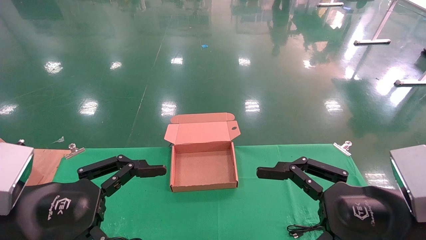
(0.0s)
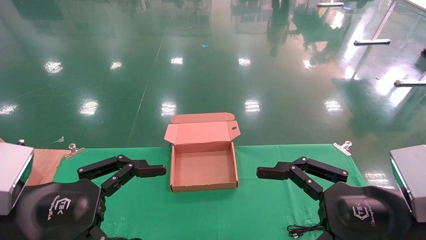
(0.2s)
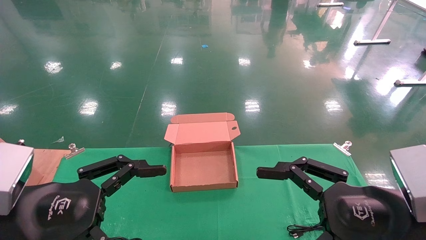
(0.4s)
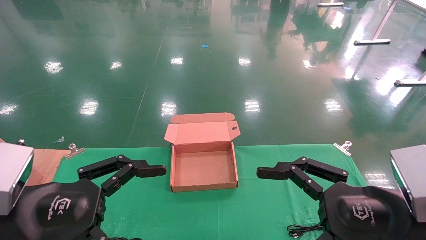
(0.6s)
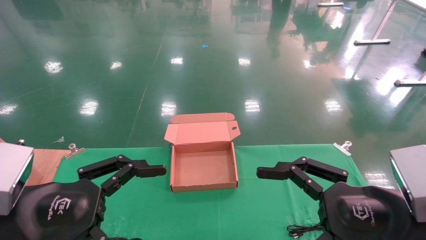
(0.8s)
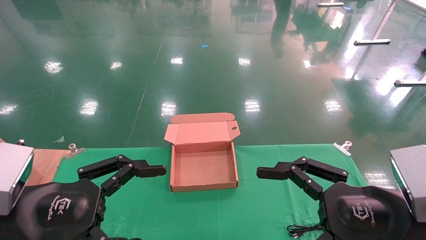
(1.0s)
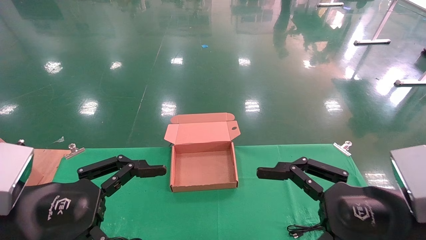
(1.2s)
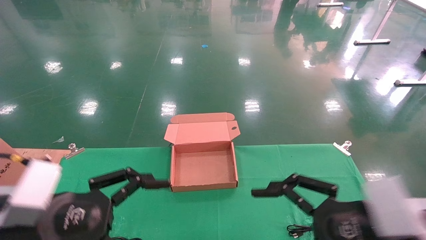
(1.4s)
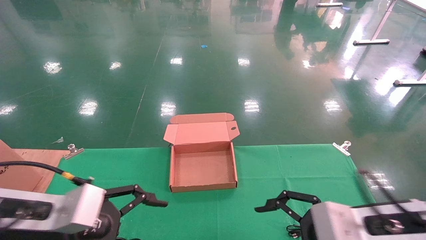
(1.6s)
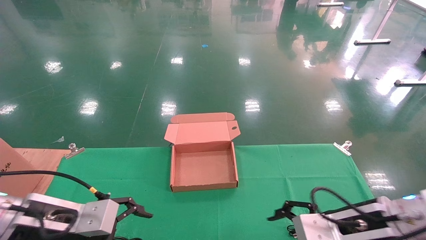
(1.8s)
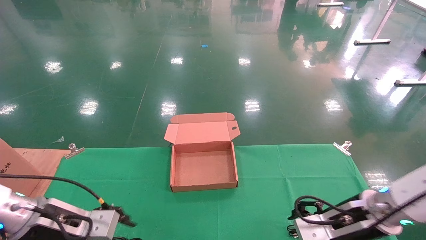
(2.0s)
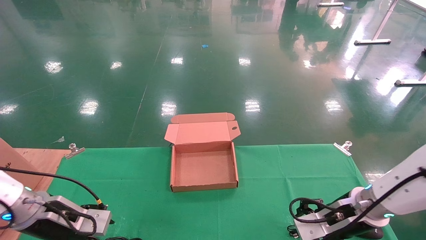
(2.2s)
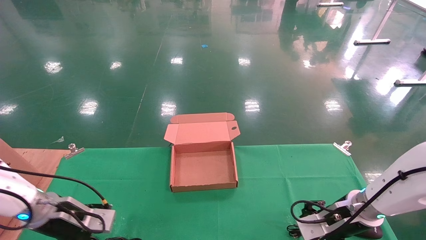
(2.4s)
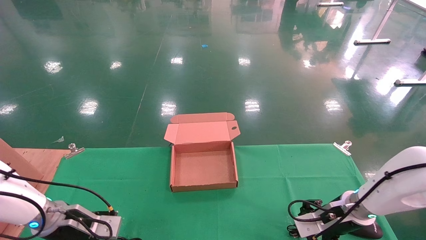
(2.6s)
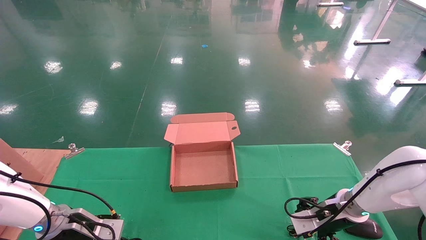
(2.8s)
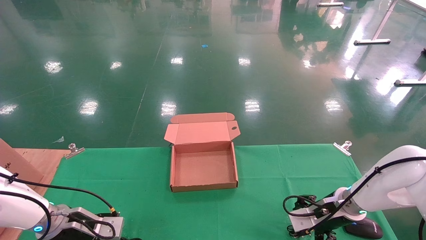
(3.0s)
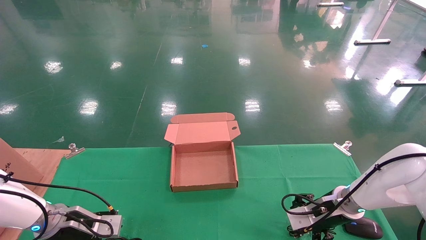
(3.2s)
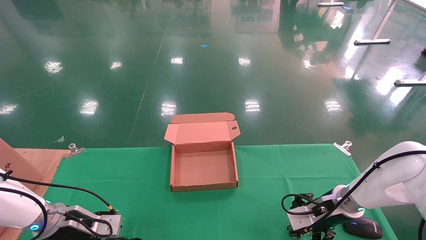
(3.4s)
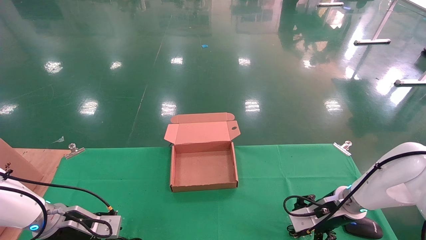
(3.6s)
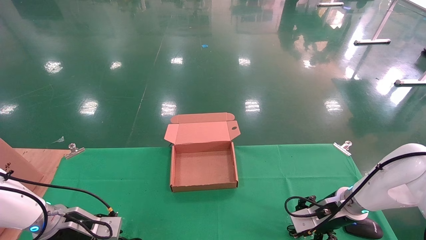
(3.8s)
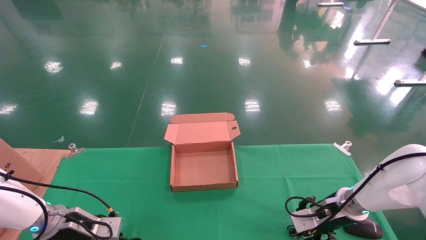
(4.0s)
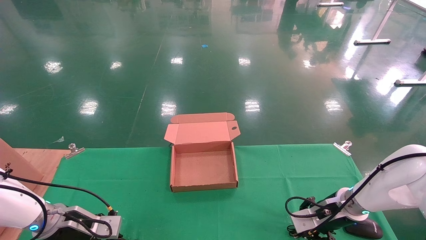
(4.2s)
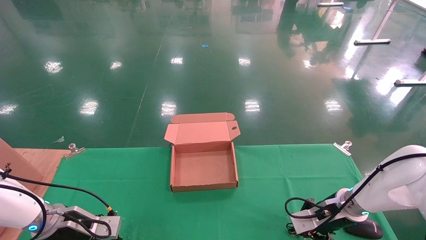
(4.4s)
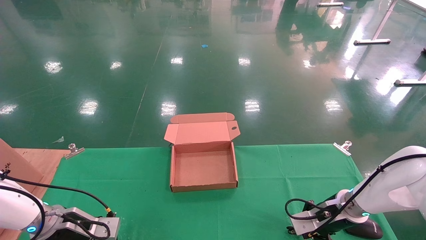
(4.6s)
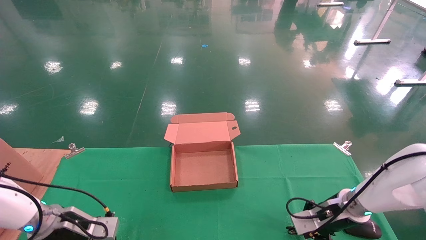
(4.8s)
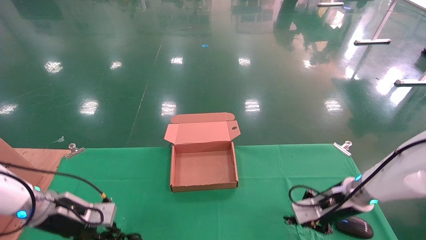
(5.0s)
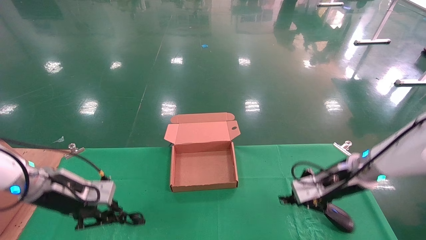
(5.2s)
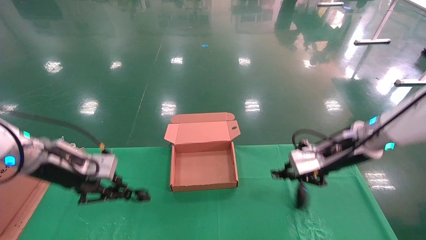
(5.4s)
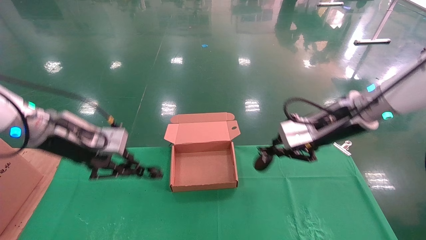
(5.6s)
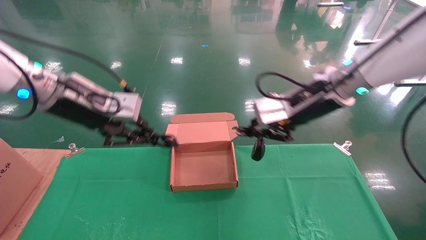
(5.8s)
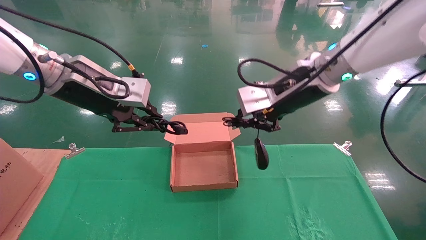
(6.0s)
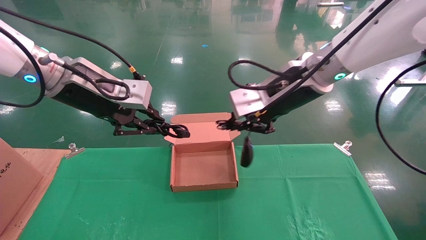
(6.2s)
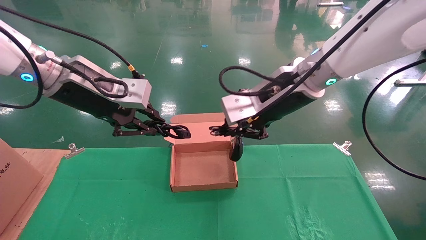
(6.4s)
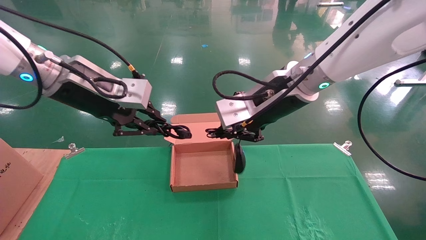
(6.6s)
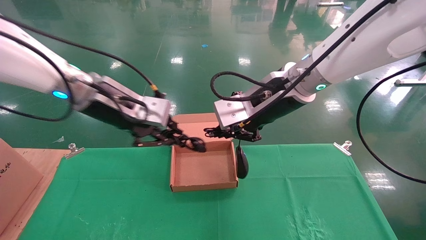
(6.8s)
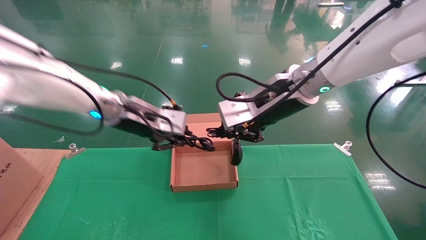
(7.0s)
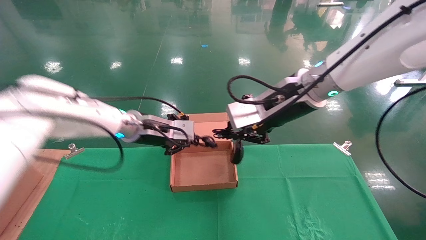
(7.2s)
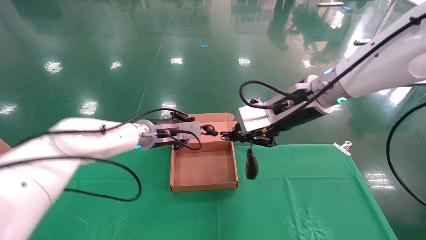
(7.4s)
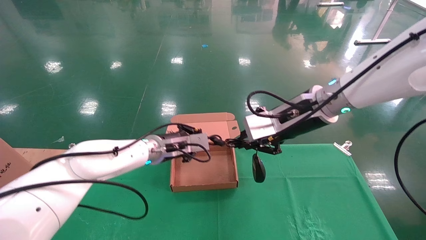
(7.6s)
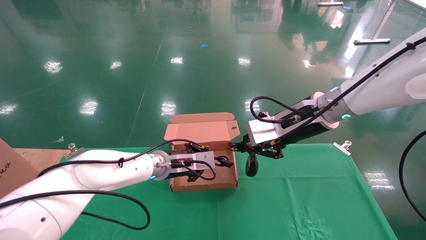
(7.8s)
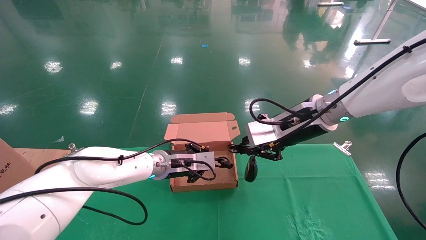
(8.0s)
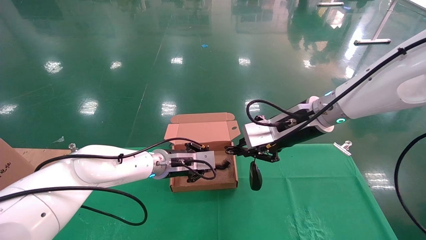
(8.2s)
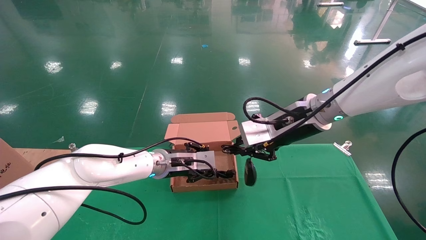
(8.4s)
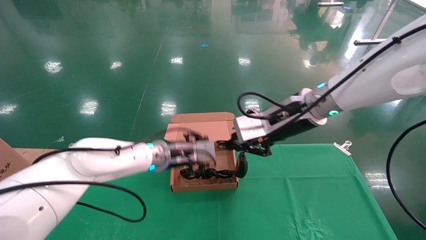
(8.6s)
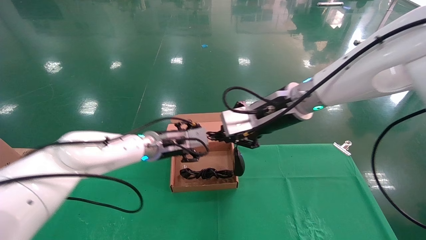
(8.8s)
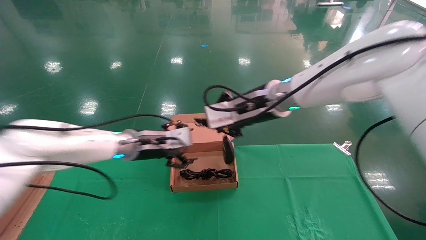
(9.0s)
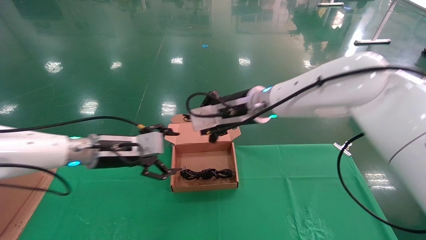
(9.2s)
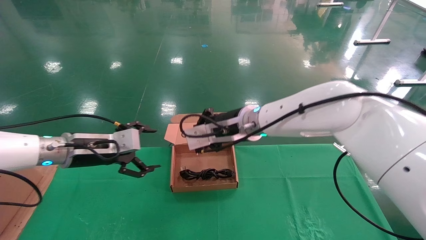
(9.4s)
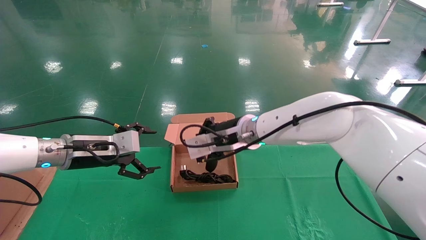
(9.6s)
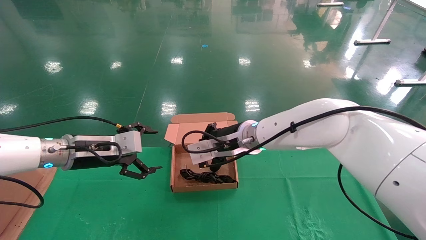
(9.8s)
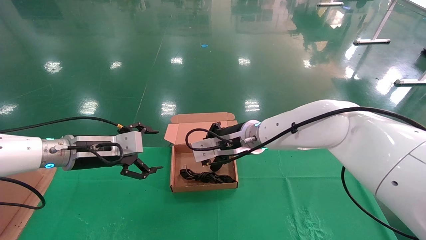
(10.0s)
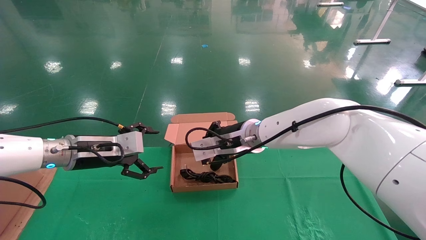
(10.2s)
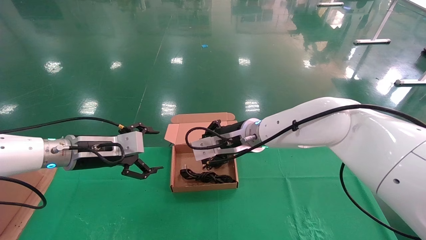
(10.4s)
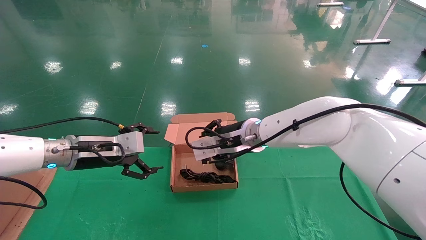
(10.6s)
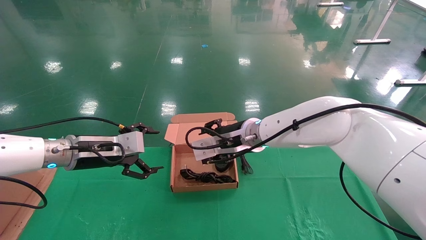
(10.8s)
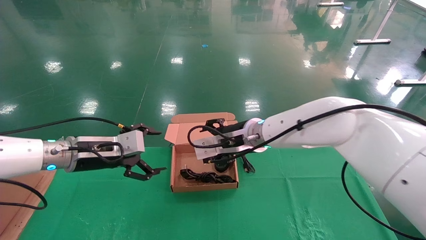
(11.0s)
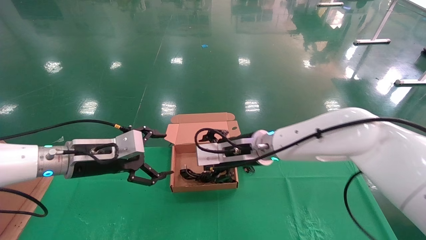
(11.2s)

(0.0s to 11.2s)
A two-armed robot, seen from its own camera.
Step, 1.4s - 5.2s: Grab and lift both the mouse and power cord from the accessory packaging area at the same time.
0.0s - 1.6s: The grippers both shift forward by approximately 5 cm.
1.6s - 3.2s: The right gripper travels forward and downward by roughly 20 cm. The left gripper moves forward, downward and to the left, some 20 cm.
3.2s - 4.8s: The right gripper closes; the left gripper closes up.
4.8s - 6.4s: The right gripper is displaced upward and to the left by approximately 30 cm. The left gripper moves upward, approximately 30 cm.
6.4s - 8.0s: The right gripper travels downward by some 5 cm; the left gripper moves downward, forward and to the right, about 30 cm.
8.0s - 9.6s: The right gripper shifts some 10 cm to the left. The left gripper is displaced to the left and backward by roughly 20 cm, and opens its fingers.
9.6s - 11.2s: The right gripper opens its fingers.

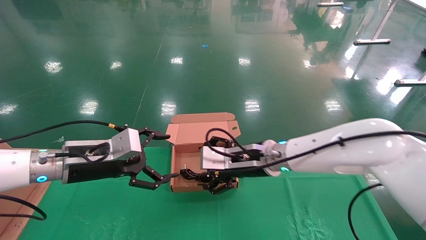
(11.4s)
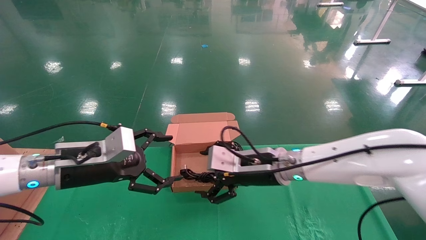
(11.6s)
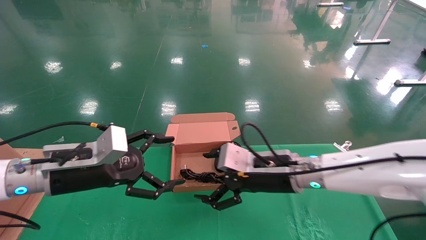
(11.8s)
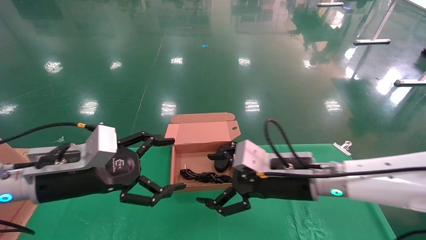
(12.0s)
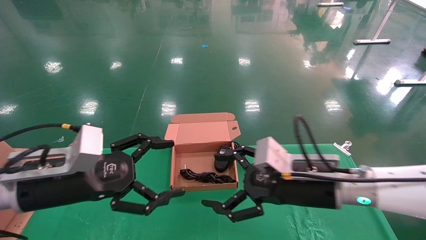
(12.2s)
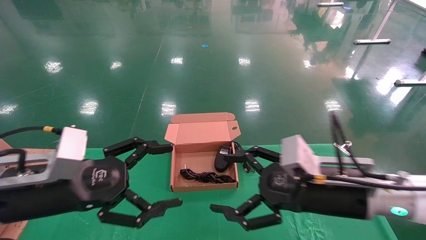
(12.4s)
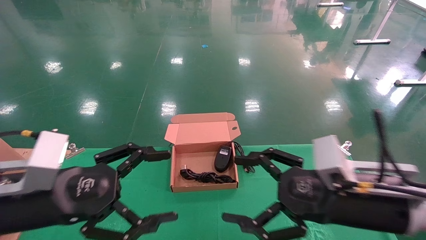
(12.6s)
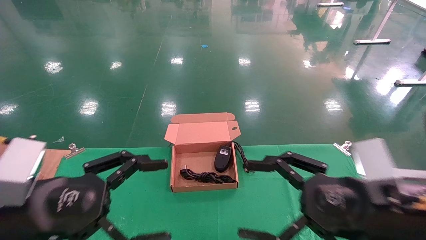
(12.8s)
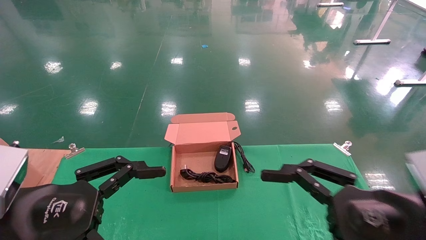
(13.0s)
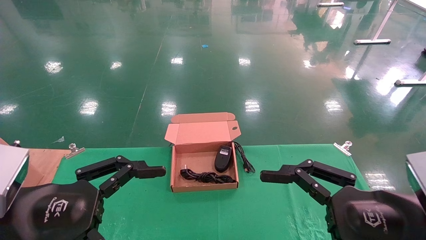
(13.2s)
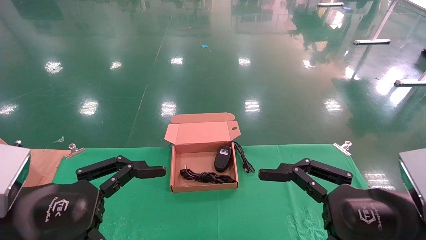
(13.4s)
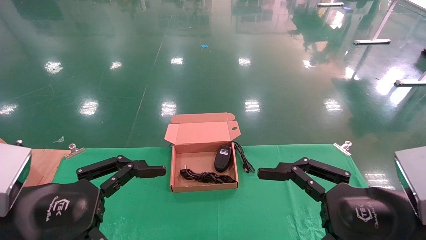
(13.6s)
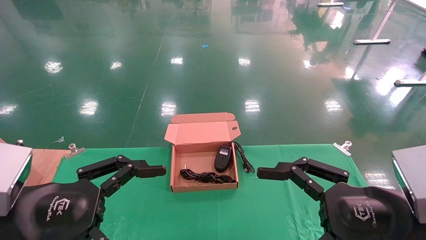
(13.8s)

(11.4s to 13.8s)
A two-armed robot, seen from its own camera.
11.4s - 12.6s: The right gripper heads backward and to the right, covering approximately 20 cm, while the left gripper moves backward, approximately 15 cm.
12.6s - 13.8s: The right gripper moves backward, some 5 cm.

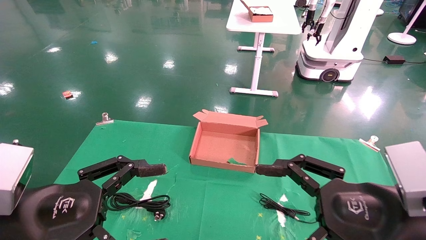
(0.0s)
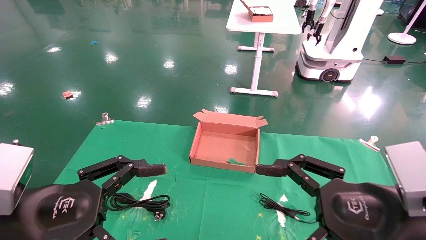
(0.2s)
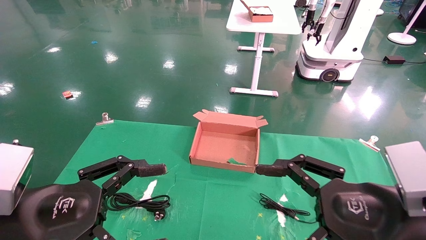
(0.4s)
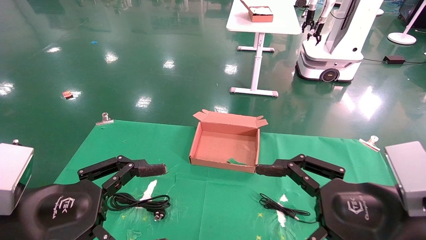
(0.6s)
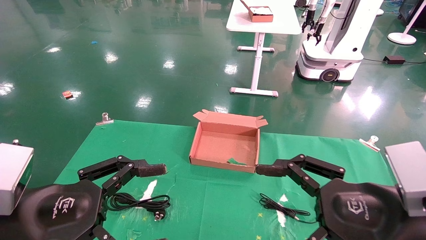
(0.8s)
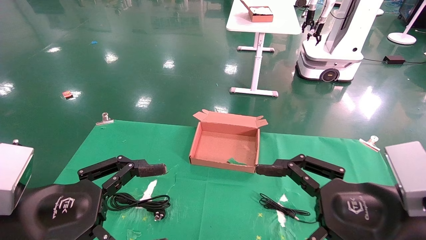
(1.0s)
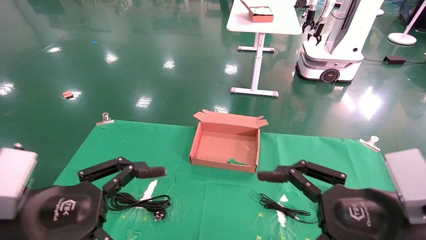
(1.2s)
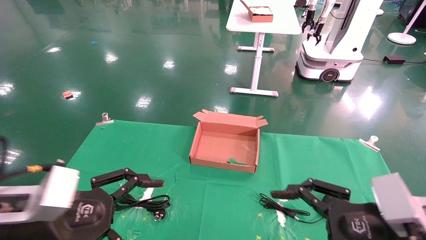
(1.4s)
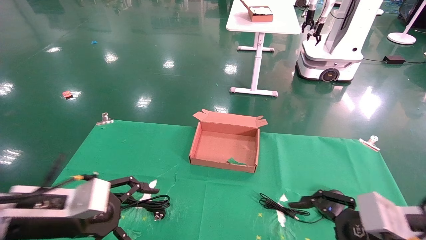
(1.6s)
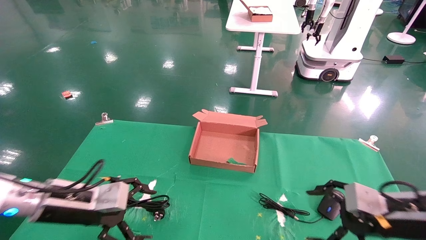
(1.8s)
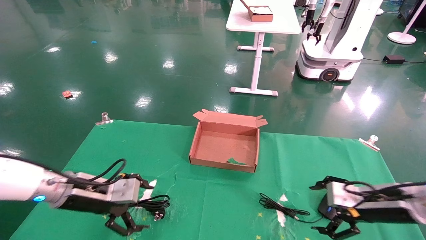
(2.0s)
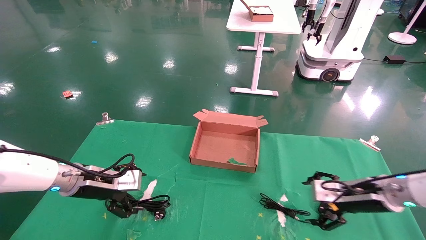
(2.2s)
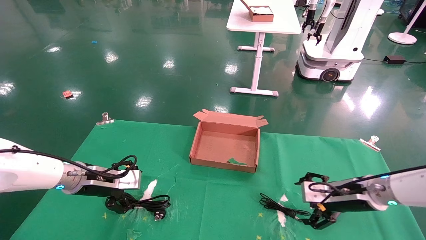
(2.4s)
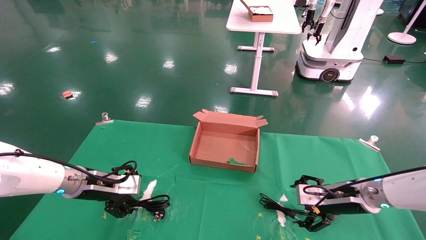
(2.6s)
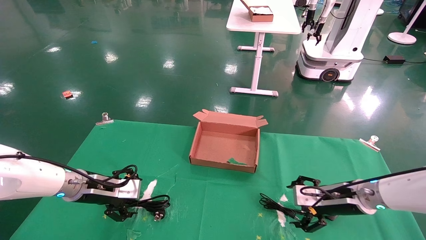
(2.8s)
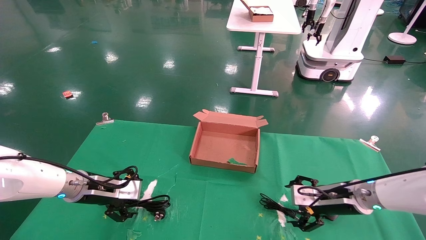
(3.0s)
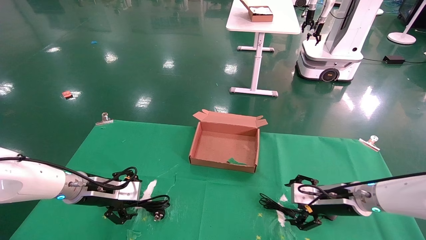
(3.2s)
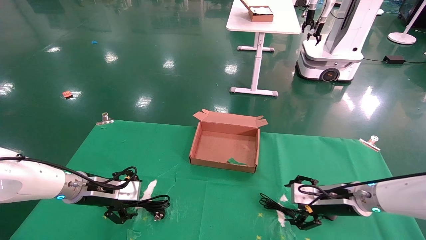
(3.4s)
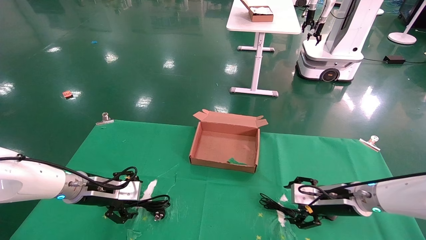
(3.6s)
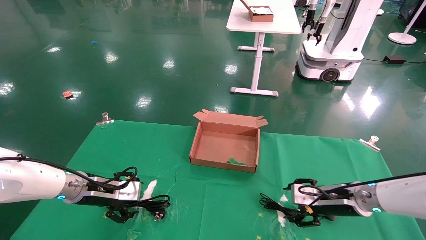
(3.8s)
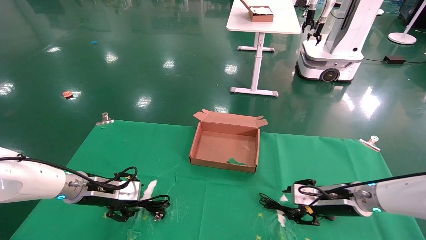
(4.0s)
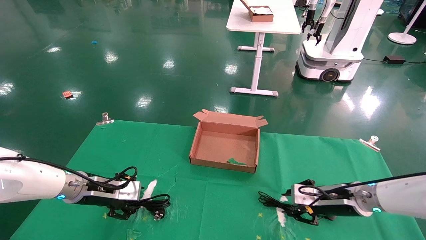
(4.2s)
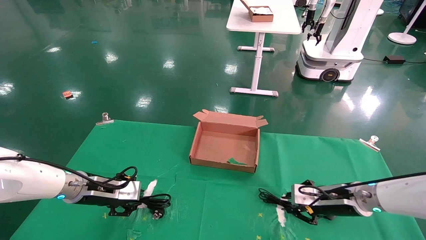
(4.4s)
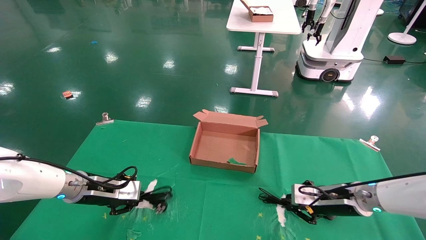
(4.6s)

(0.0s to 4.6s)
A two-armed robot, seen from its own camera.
0.0s - 1.6s: The left gripper goes roughly 10 cm forward; the right gripper travels forward, to the right and downward by roughly 10 cm.
1.6s - 3.0s: The grippers both shift forward by roughly 15 cm.
3.0s - 4.6s: The left gripper closes its fingers; the right gripper closes up.
